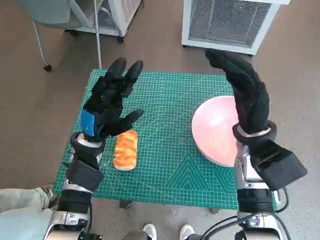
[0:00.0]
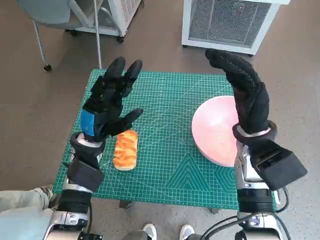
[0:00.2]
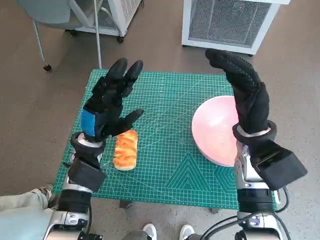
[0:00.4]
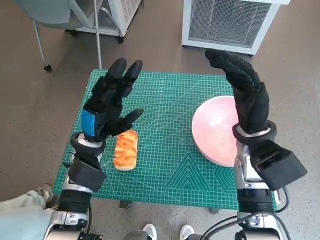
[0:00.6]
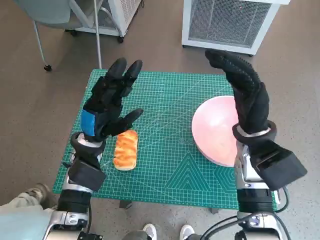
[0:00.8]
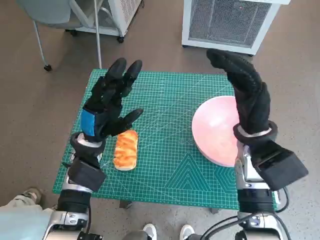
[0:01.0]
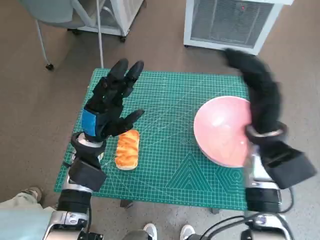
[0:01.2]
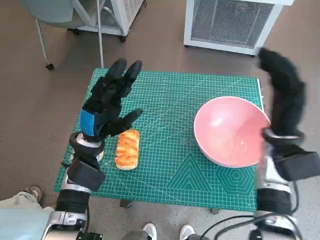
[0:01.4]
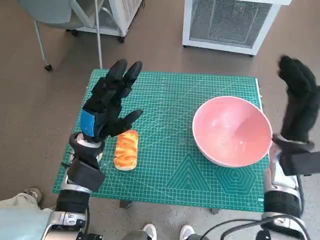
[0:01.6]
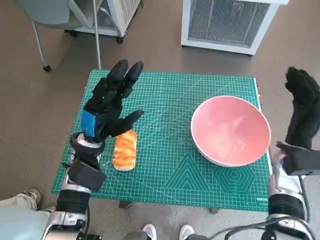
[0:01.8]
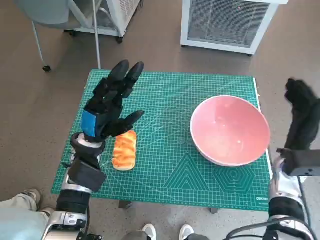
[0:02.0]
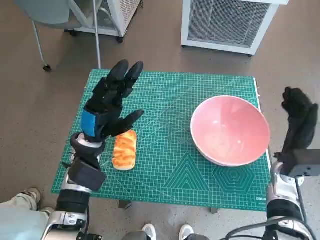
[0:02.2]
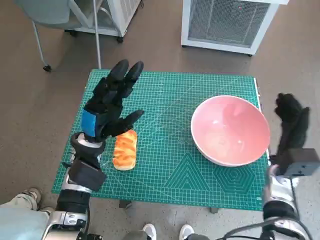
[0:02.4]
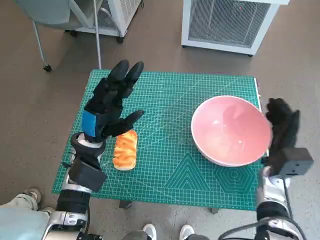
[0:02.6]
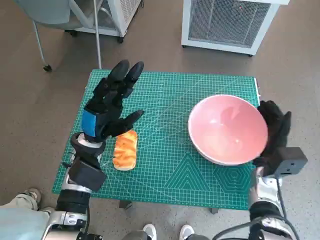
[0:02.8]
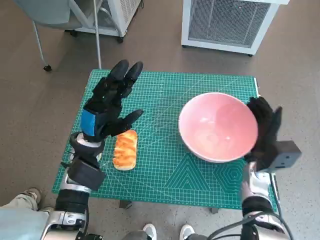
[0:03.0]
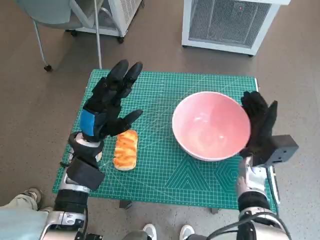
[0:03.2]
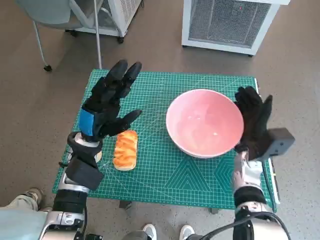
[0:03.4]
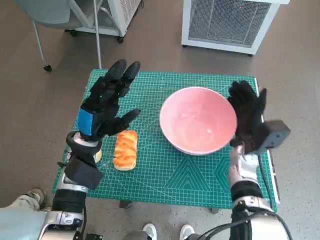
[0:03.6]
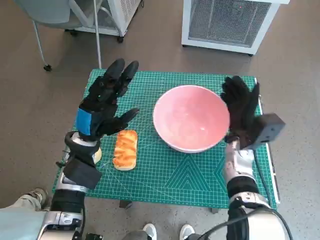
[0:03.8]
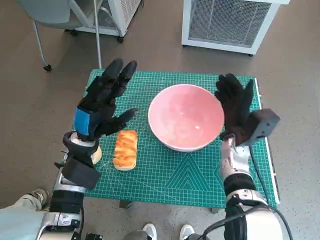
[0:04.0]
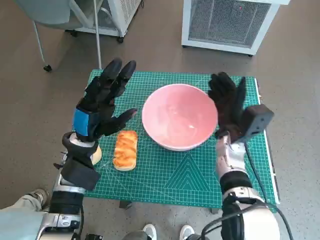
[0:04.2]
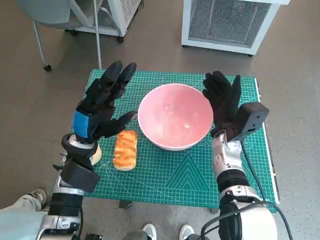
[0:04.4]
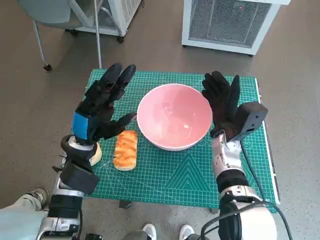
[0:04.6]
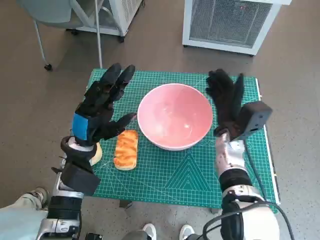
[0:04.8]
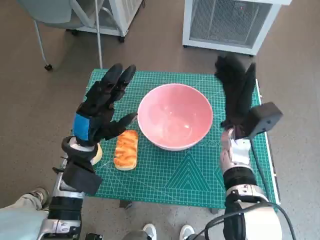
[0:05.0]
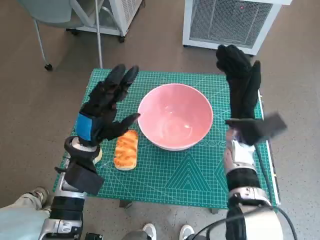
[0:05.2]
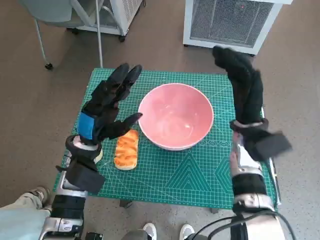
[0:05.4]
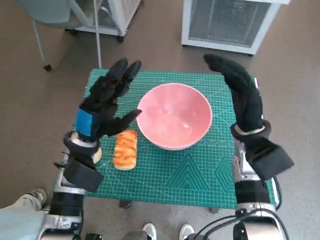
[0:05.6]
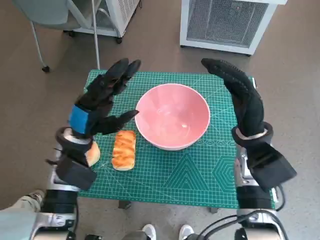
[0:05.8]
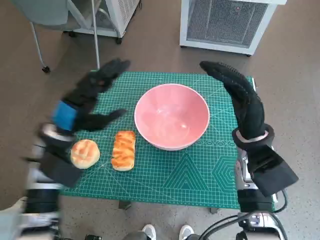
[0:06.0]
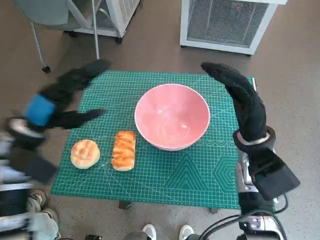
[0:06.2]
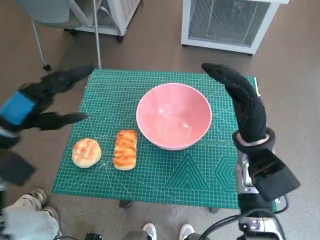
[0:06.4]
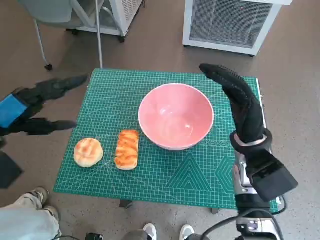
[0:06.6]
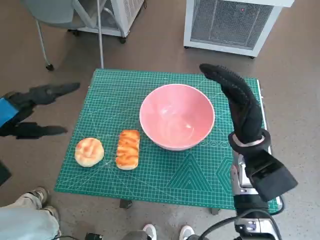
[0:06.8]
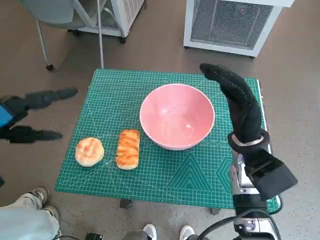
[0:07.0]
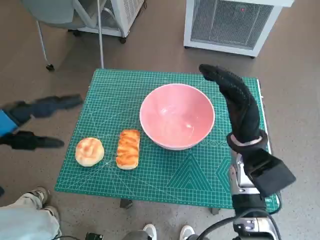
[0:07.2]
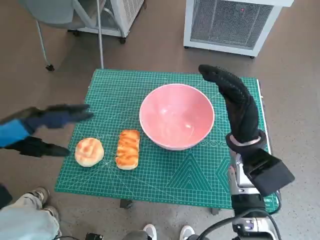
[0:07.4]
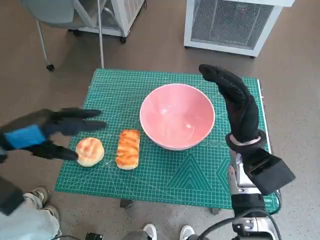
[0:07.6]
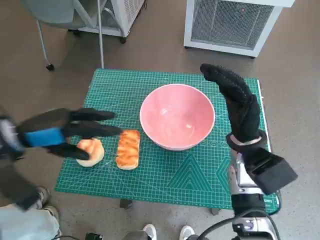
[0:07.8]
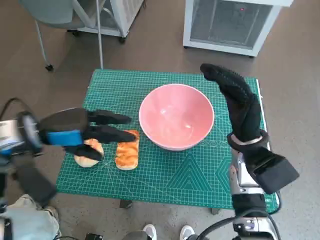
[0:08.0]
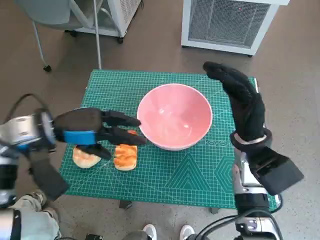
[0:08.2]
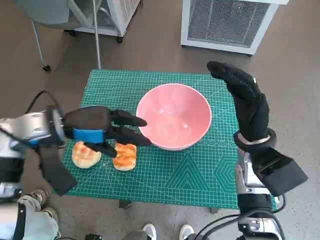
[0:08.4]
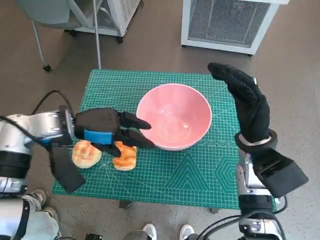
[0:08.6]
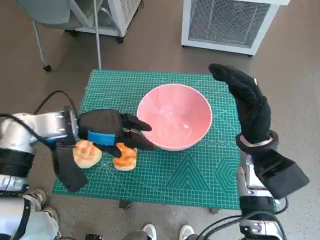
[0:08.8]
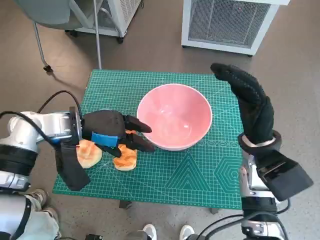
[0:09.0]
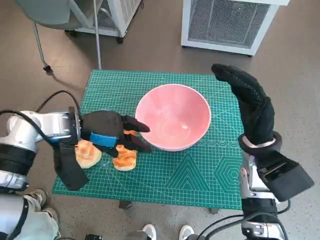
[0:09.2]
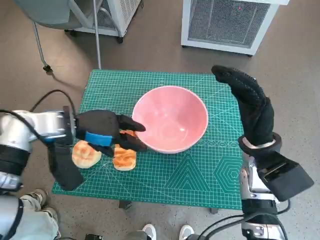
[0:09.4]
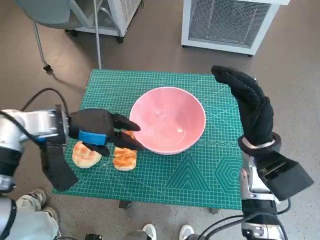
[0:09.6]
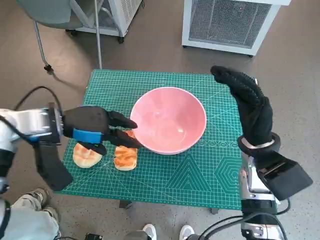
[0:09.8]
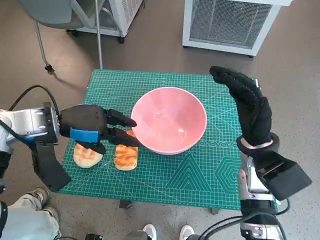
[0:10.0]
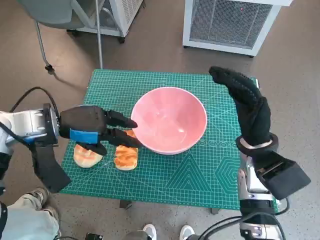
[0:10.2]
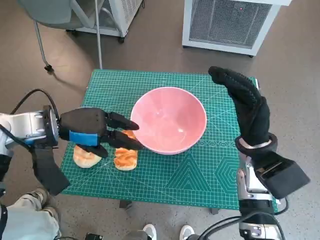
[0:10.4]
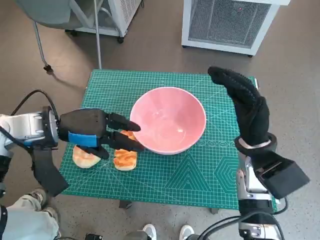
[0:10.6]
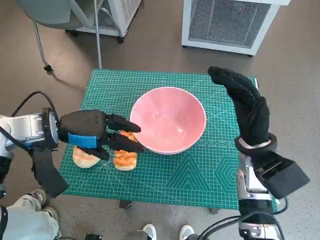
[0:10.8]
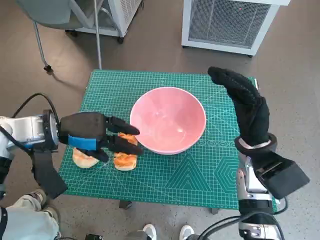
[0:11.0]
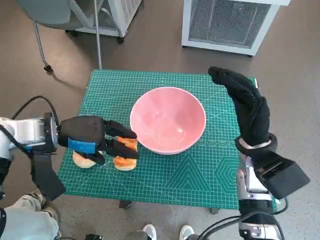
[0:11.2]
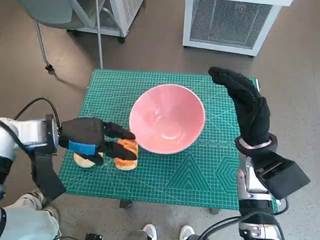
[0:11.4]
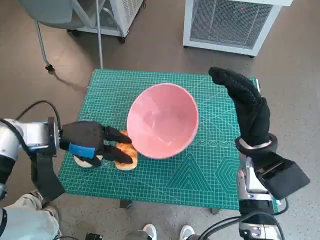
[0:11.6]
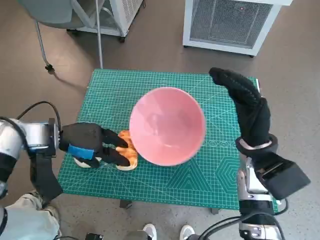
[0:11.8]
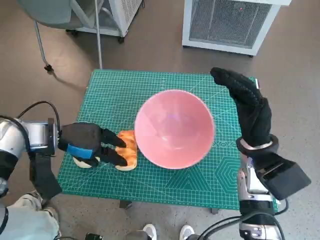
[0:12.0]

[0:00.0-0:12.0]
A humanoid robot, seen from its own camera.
Task of the whole recording: Push the bowl to the center of the table and put the bread into the bowl.
Step, 0:00.0 to 0:04.8: Move the pink bowl to the center of table with right hand.
0:01.6 to 0:03.0: The right hand shifts approximately 10 cm downward.
0:03.0 to 0:04.4: The right hand travels to the left by approximately 10 cm.
0:04.4 to 0:06.0: The right hand goes about 5 cm upward.
0:06.0 to 0:07.6: The left hand moves to the left and upward, some 10 cm.
0:07.6 to 0:09.0: The left hand is displaced to the right and forward by roughly 10 cm.
0:10.4 to 0:12.0: The hands move only a little.

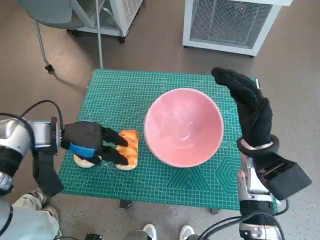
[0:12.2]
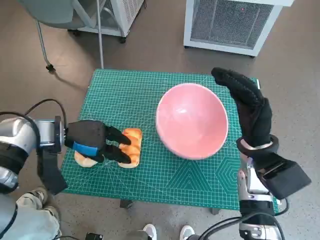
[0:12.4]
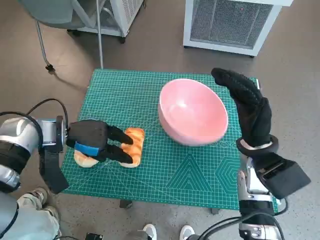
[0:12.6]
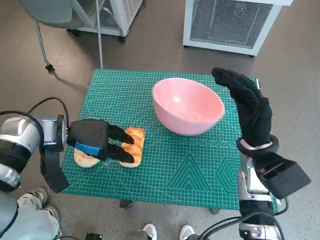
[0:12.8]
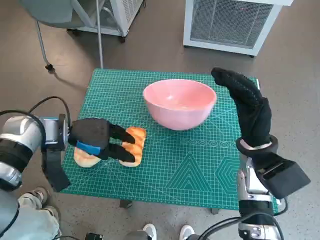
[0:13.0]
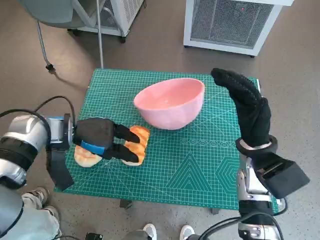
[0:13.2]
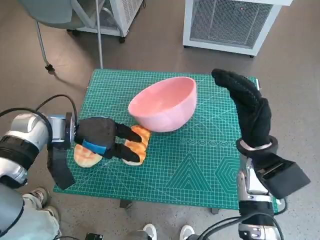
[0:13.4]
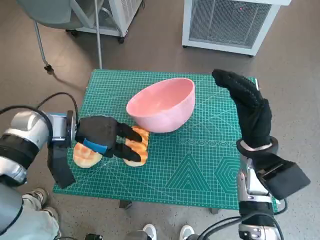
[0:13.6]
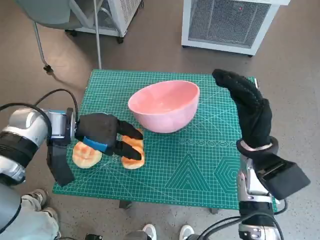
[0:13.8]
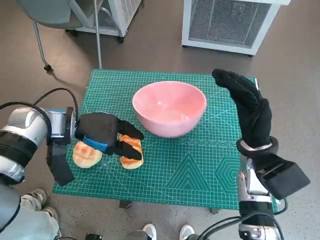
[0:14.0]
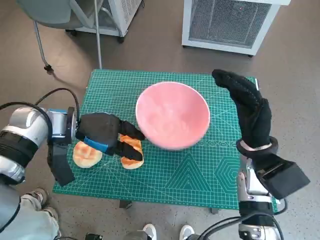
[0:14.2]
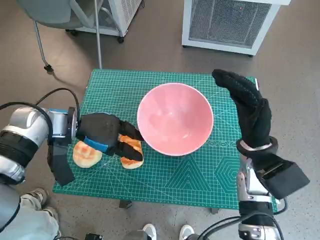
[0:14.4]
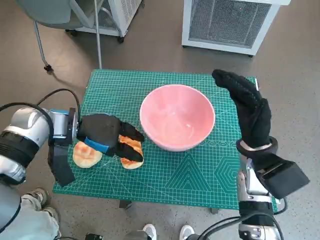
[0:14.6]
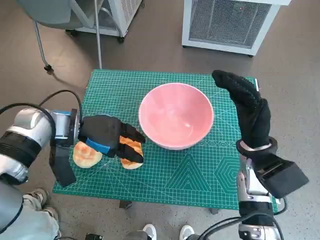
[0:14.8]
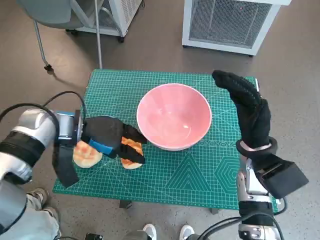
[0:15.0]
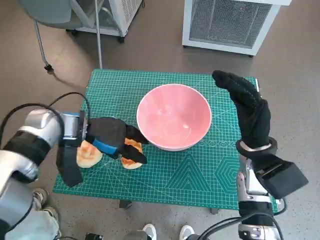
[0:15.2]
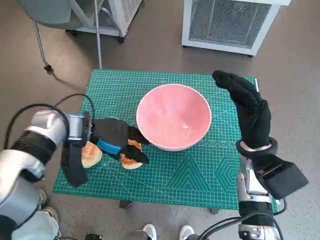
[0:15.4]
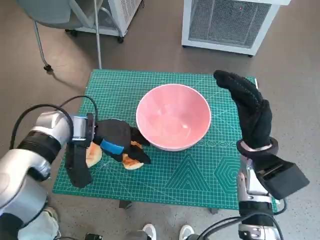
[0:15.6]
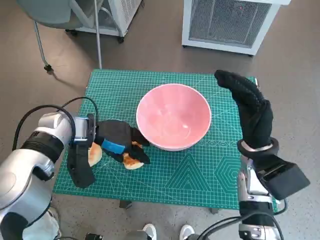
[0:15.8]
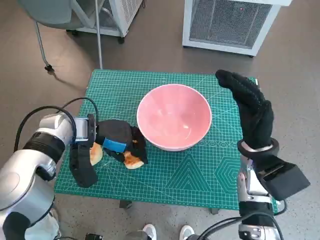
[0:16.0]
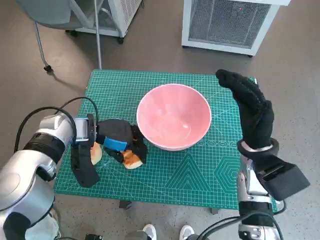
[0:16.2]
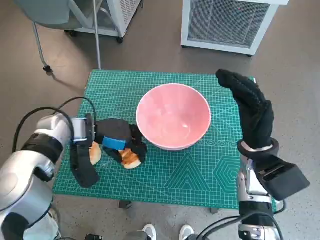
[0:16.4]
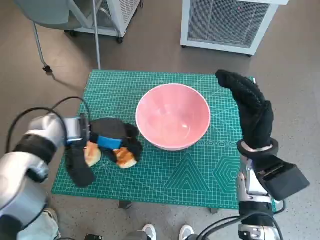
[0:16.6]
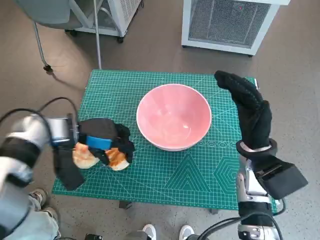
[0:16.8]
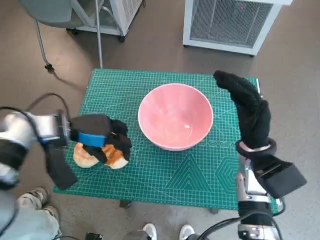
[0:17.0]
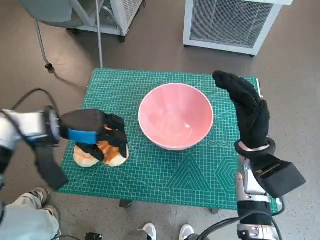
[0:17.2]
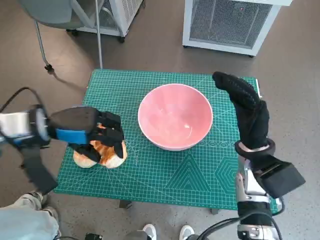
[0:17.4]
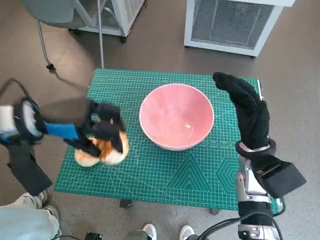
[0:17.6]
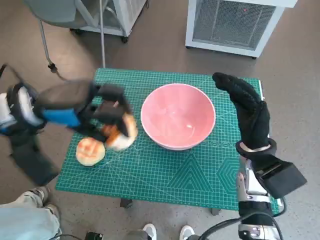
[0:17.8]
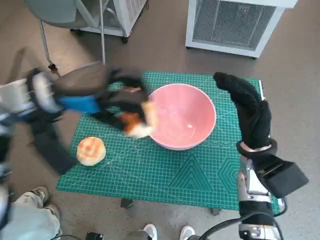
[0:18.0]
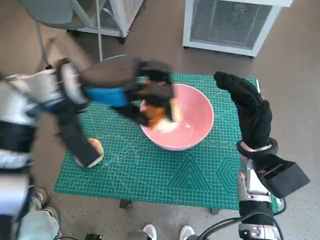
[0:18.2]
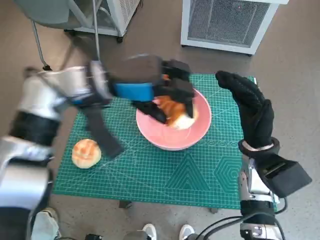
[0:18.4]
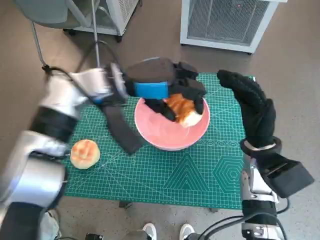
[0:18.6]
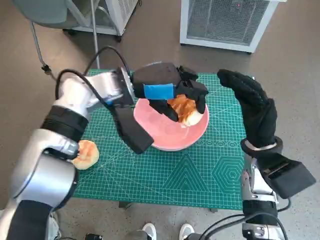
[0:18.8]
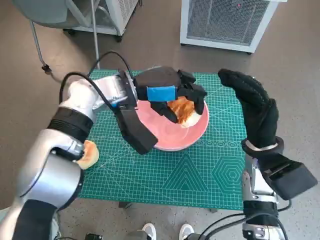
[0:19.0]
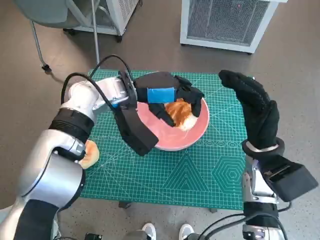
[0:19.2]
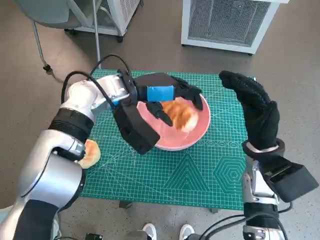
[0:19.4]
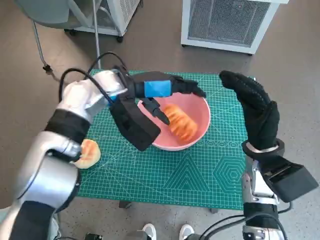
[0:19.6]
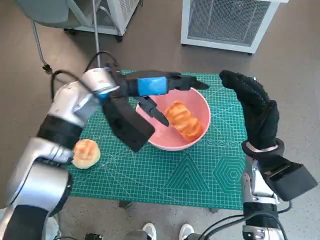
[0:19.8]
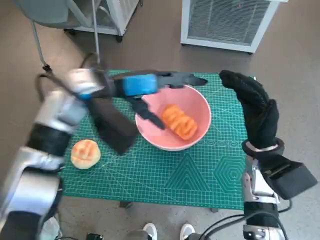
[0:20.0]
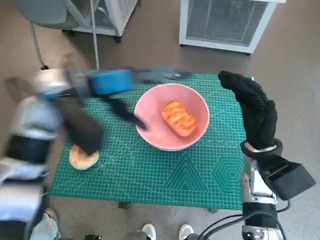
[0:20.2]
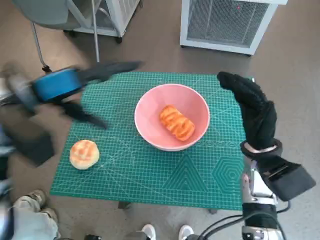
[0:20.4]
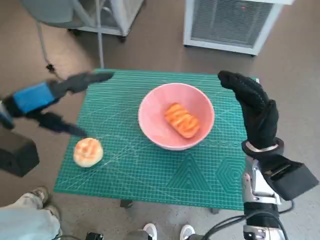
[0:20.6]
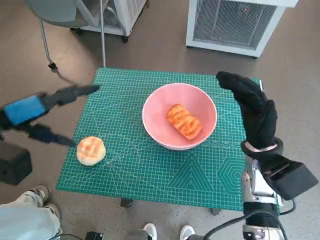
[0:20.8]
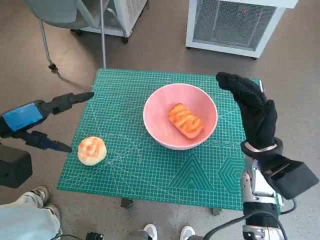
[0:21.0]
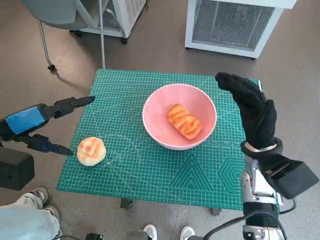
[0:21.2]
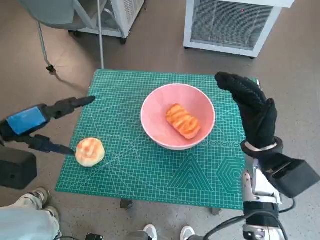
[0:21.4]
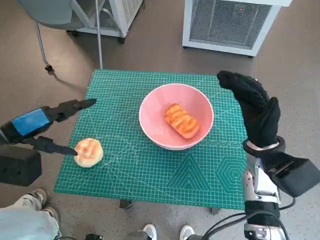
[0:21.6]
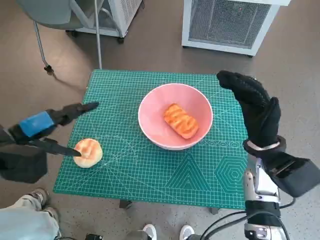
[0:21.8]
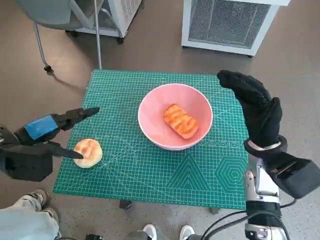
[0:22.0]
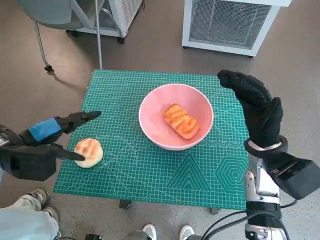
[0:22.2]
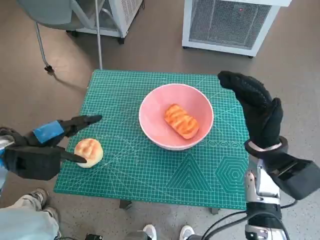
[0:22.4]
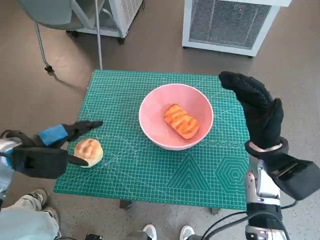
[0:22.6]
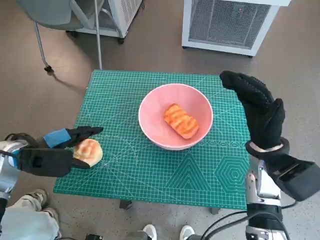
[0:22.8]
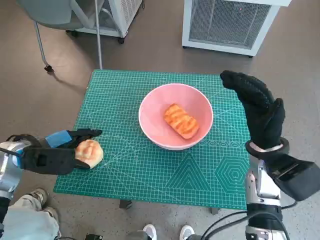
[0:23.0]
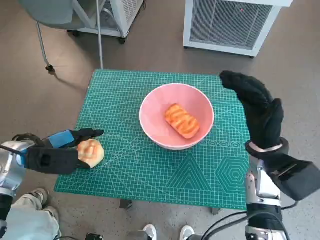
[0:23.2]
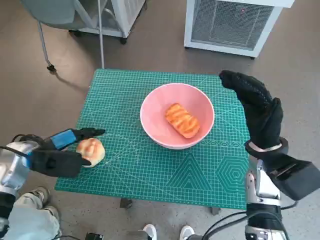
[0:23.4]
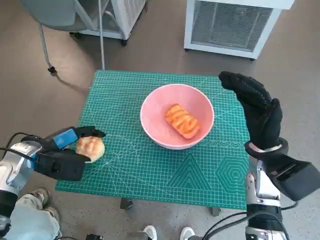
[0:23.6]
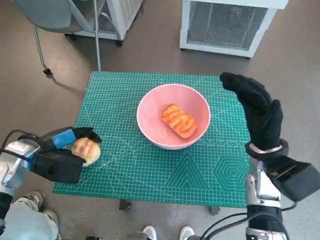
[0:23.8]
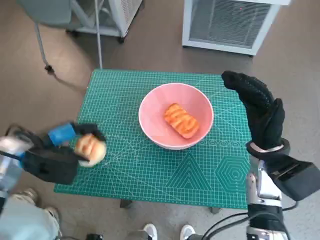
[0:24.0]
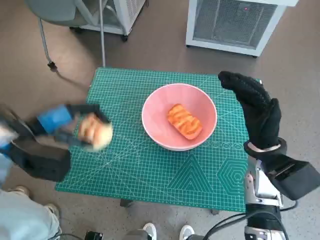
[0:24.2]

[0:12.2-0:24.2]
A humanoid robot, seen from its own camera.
Task of the whole recording: Push the bowl to the center of the table and put the bread into the bowl.
Step, 0:12.2 to 0:15.8: Grasp the long bread with left hand.
Step, 0:16.2 to 0:19.8: Place the long bread in pink bowl with left hand.
Step, 0:20.0 to 0:23.6: Grasp the round bread with left hand.
0:13.8 to 0:16.6: The hands make only small movements.
0:16.6 to 0:18.2: The left hand shifts roughly 15 cm upward.
0:18.2 to 0:19.8: The left hand heads to the right, covering about 5 cm.
0:19.8 to 0:21.2: The left hand heads to the left and backward, covering approximately 20 cm.
0:21.2 to 0:22.6: The left hand goes roughly 5 cm downward.
0:22.6 to 0:24.2: The hands make only small movements.
